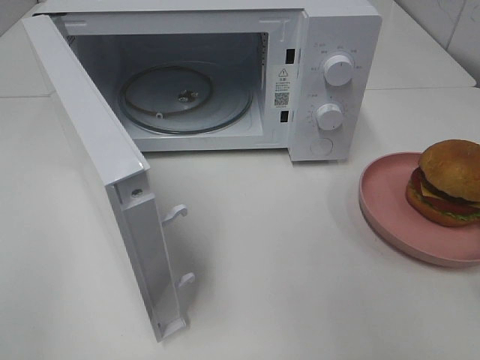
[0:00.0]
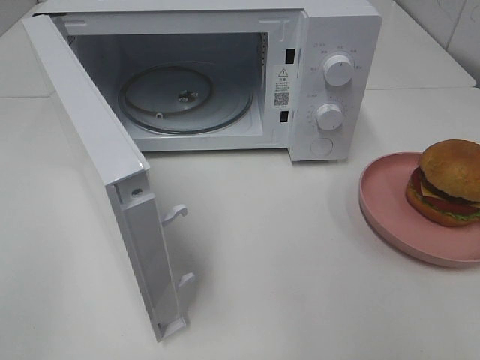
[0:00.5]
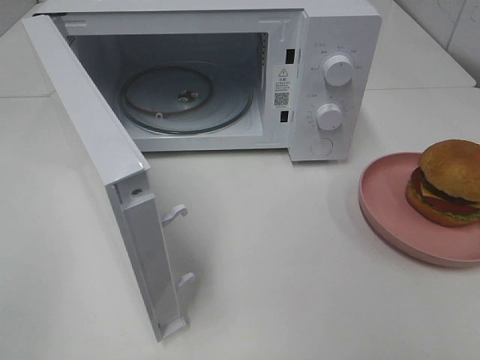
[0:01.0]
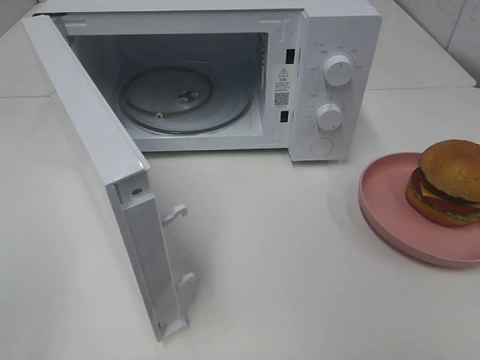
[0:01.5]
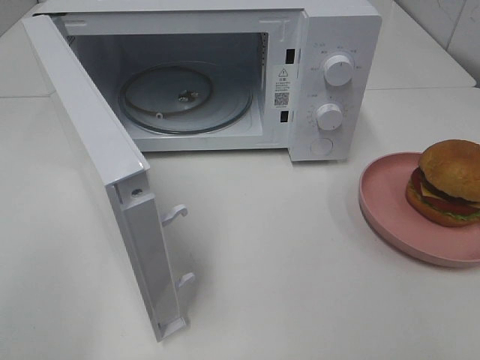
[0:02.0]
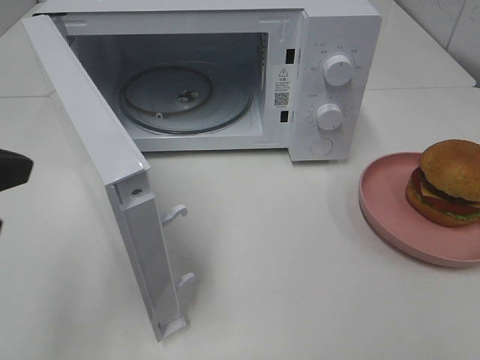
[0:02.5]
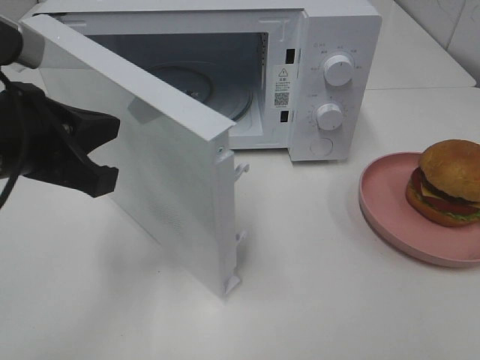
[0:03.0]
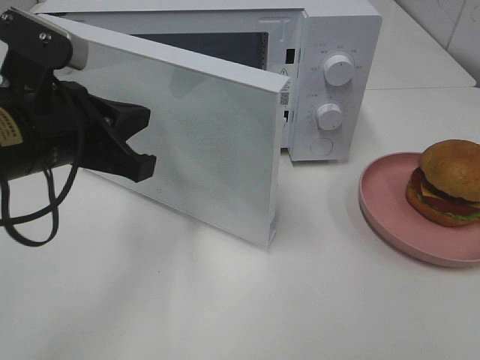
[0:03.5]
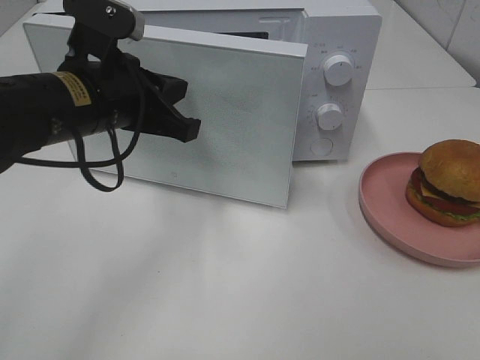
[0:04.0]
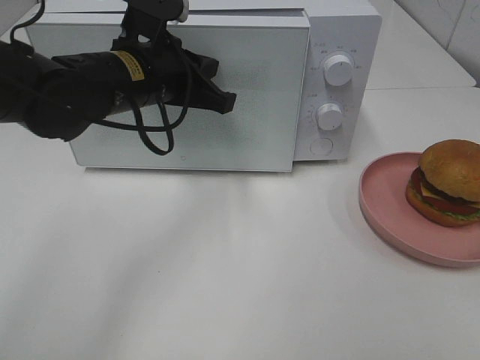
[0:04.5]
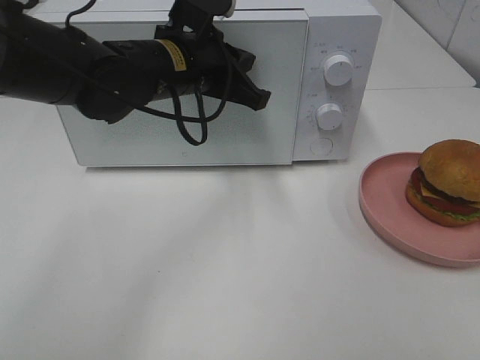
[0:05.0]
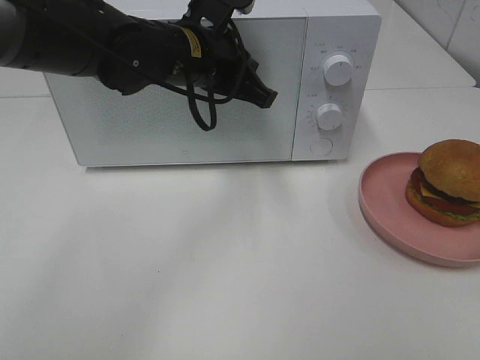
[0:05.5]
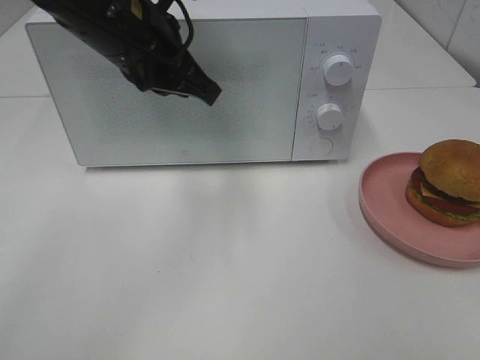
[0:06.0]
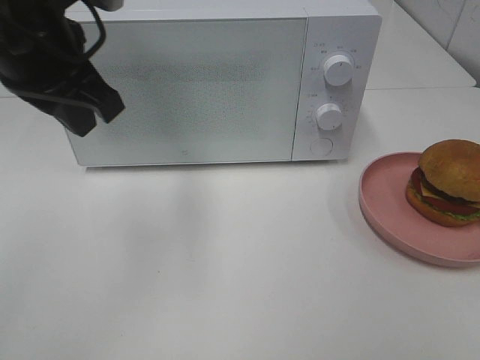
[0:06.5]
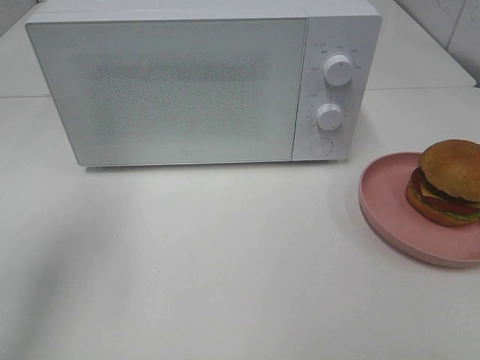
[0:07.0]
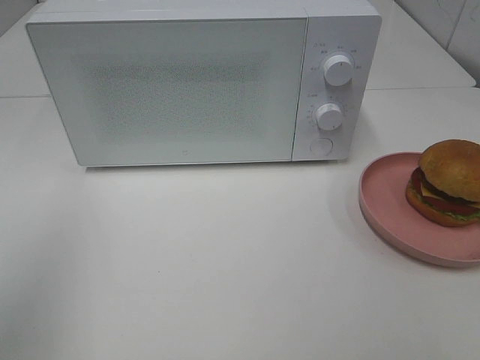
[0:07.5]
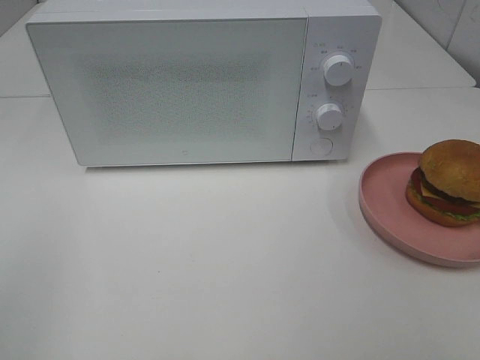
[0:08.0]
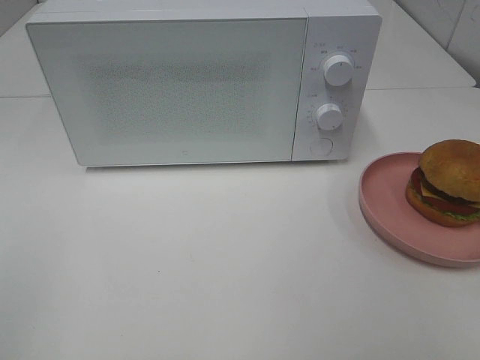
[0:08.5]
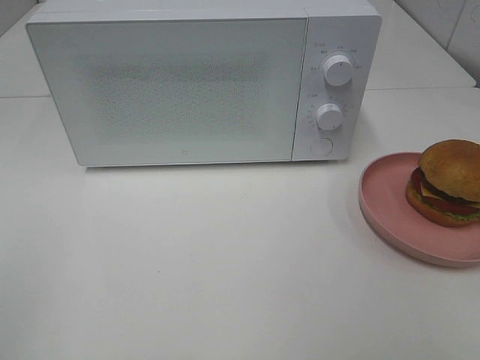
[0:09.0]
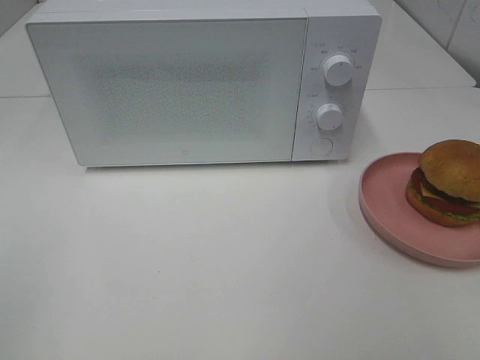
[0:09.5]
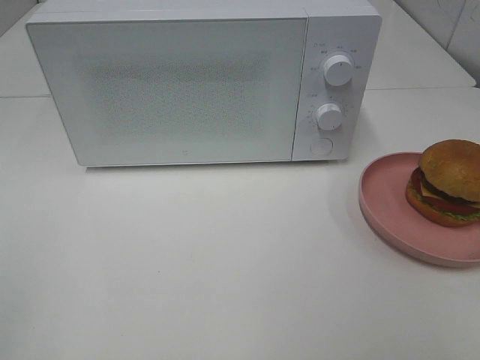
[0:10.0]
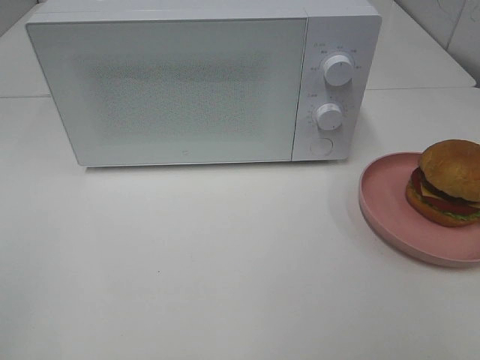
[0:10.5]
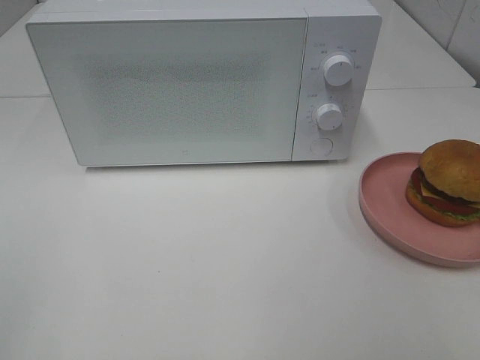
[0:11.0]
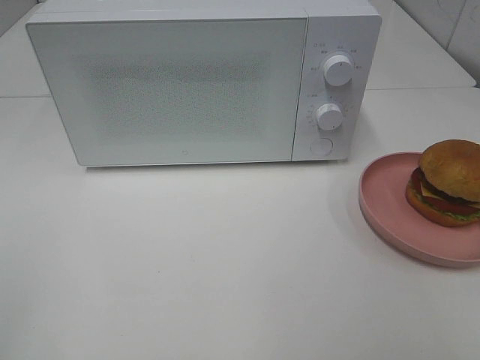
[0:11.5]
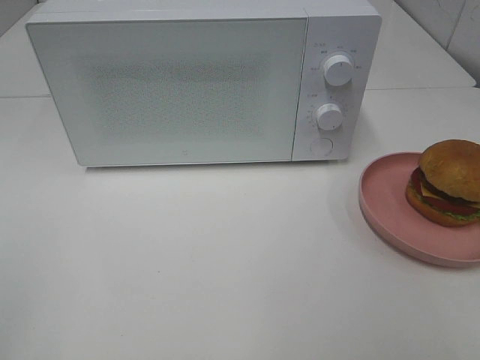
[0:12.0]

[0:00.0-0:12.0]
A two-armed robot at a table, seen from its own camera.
Task of the whole recording: Heat the burger.
Step, 0:00.0 to 0:05.5: Left hand: close the microwave door.
0:02.0 to 0:04.0: The left gripper shifts some 30 cm forward, to the right and downward.
0:04.0 to 0:06.0: The left gripper is displaced upward by some 5 cm.
0:06.0 to 0:08.0: The left gripper goes some 35 cm backward and to the left.
0:10.0 to 0:12.0: The two grippers keep their place.

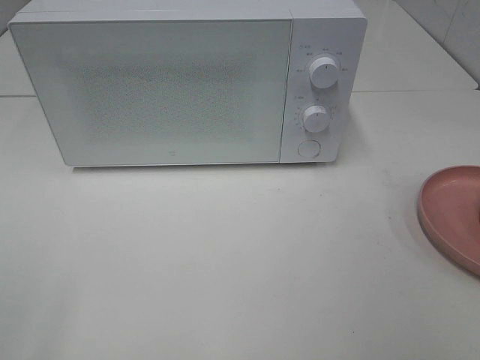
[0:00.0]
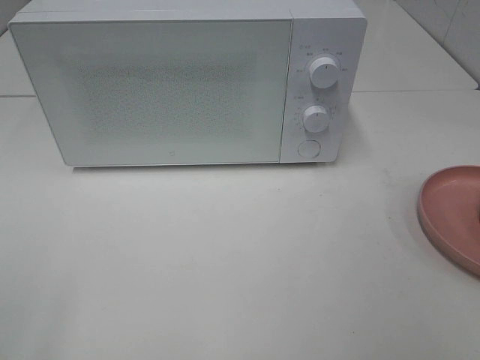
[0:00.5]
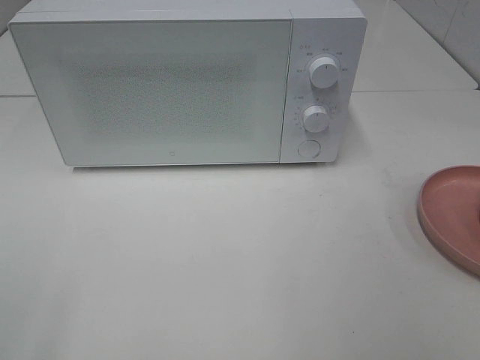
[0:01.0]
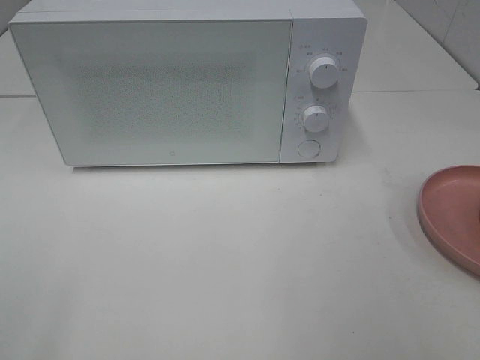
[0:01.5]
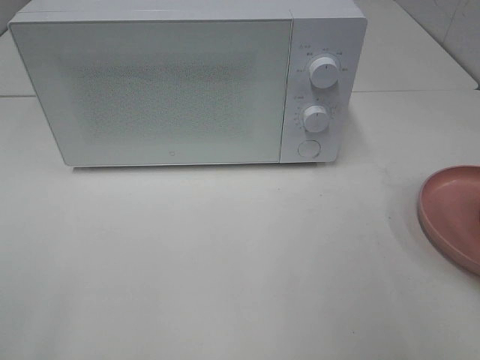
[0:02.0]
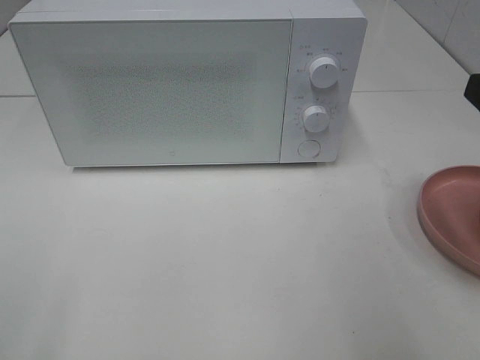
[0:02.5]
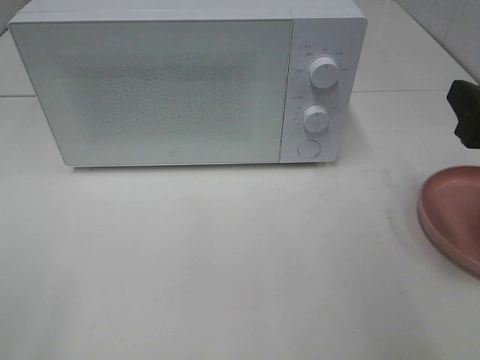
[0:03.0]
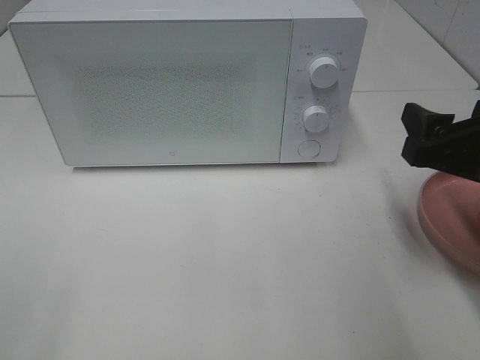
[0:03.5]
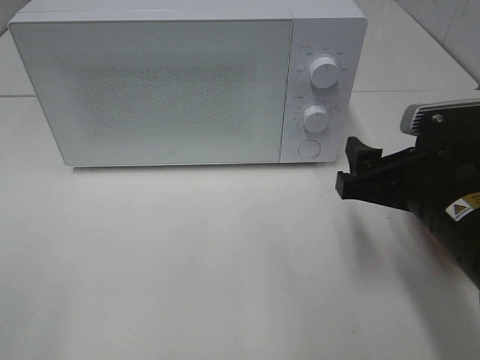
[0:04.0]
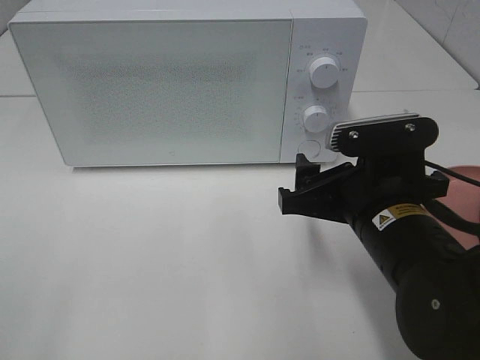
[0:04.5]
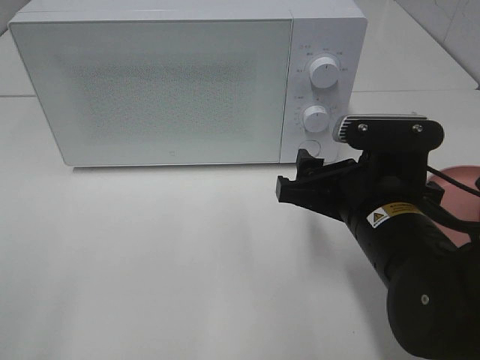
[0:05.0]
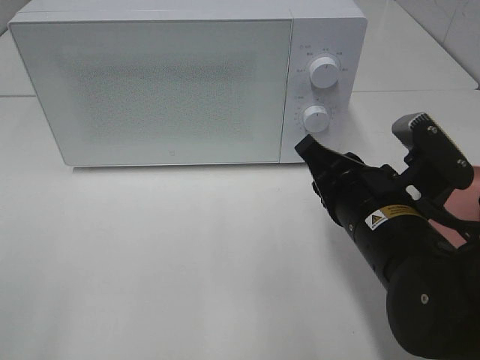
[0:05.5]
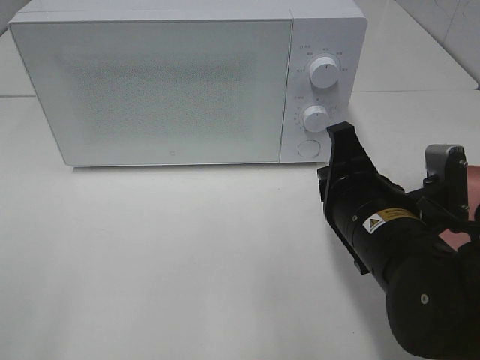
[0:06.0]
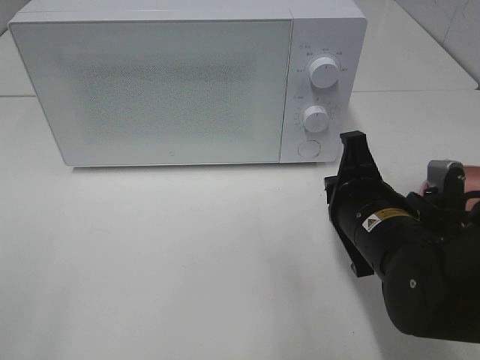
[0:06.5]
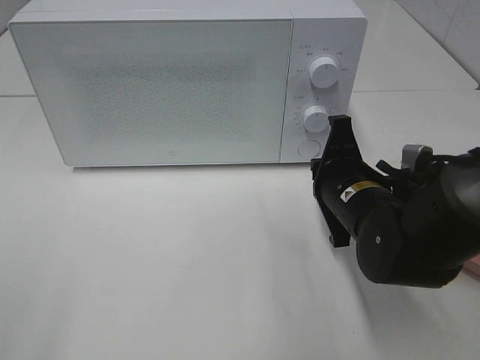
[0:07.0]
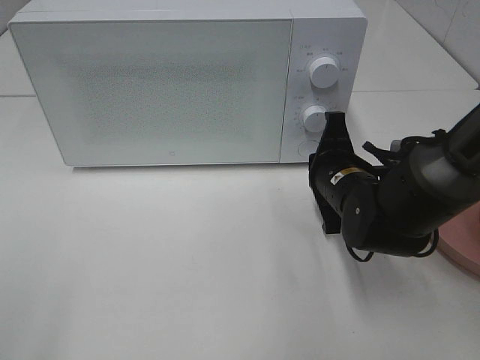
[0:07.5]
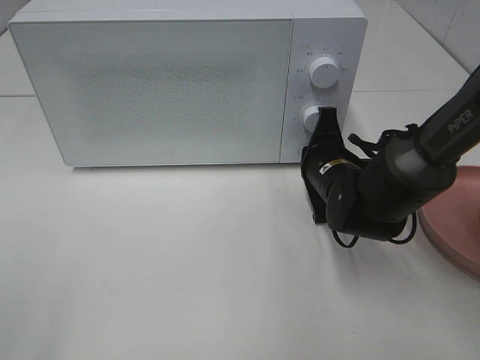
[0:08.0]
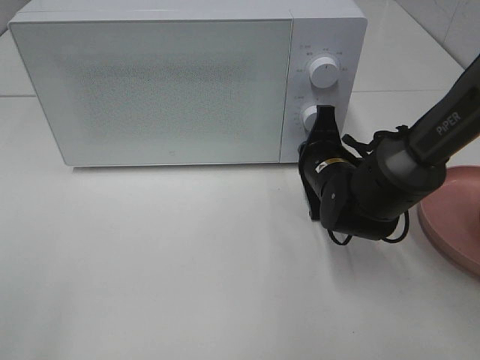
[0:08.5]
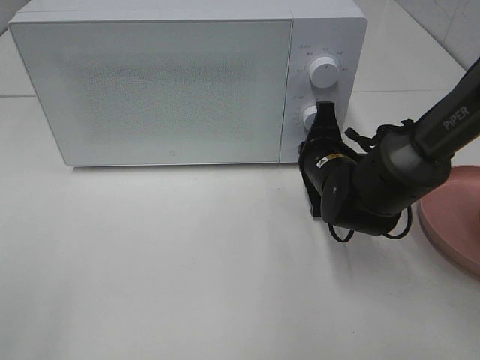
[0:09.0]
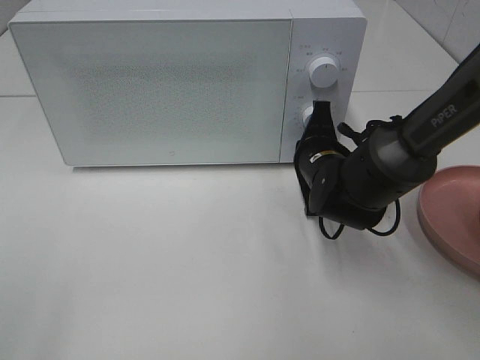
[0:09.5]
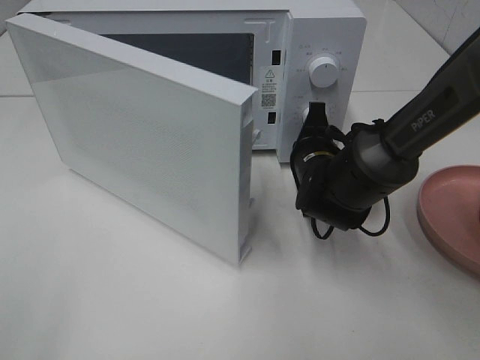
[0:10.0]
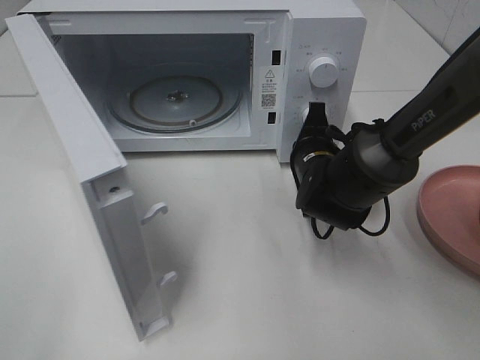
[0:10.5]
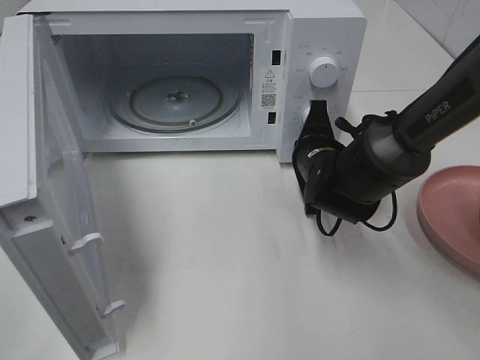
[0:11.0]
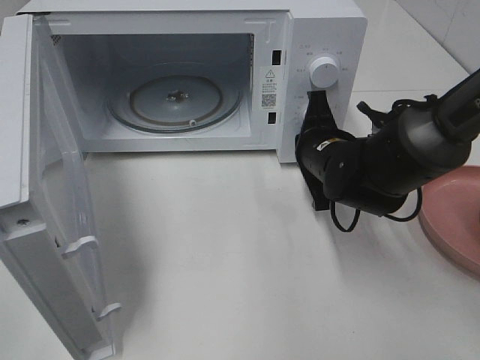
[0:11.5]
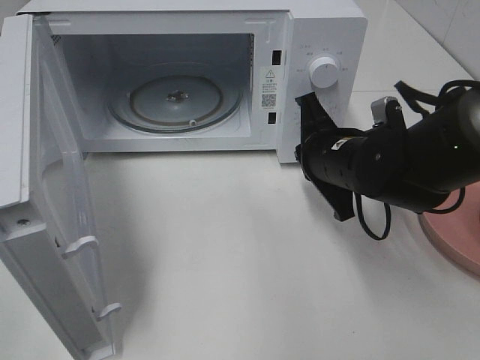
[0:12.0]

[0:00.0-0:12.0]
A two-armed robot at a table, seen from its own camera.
Task of the whole recording: Heat the burger.
Step, 0:00.0 to 0:11.5: Right hand: press the switch.
0:02.0 to 0:04.0: The right gripper goes approximately 15 cm downward, to the left and forward.
0:04.0 to 0:06.0: The right gripper is displaced to the left by about 5 cm, and closes its fingers.
0:06.0 to 0:08.0: The right gripper goes roughly 15 cm forward and downward.
0:10.0 to 0:12.0: The right gripper goes some 5 cm upward.

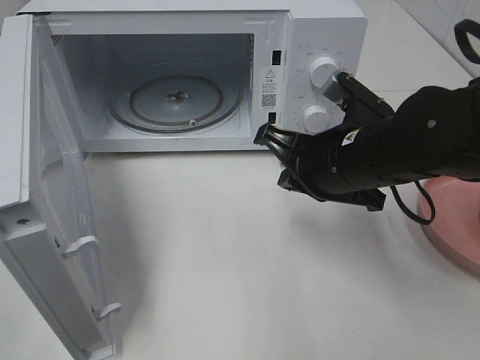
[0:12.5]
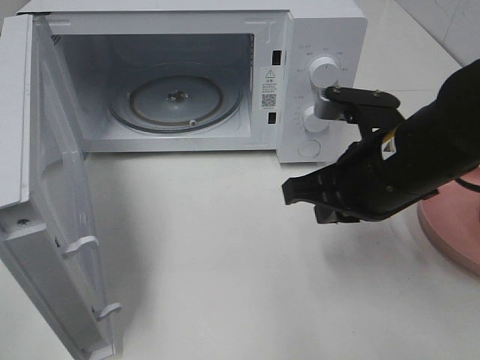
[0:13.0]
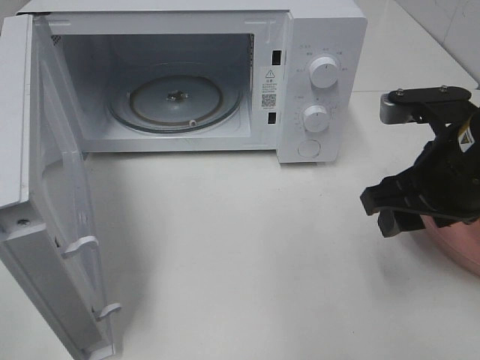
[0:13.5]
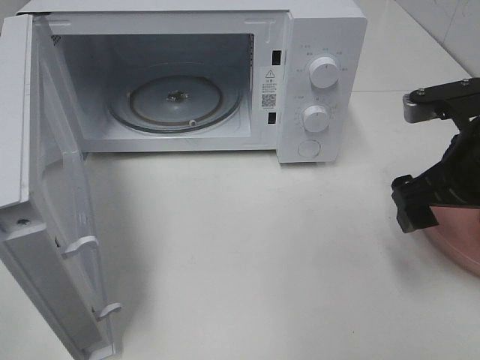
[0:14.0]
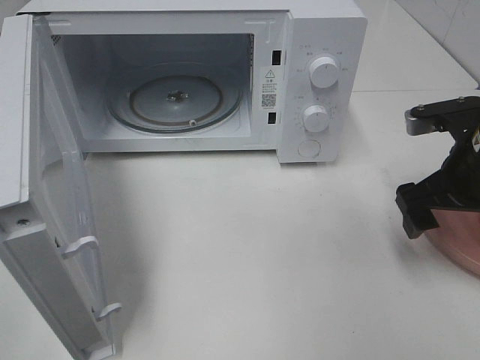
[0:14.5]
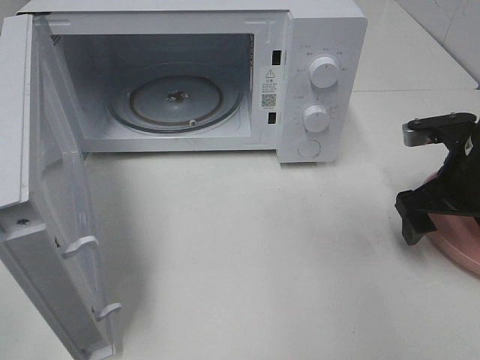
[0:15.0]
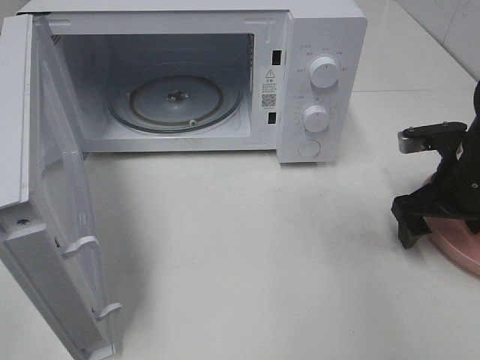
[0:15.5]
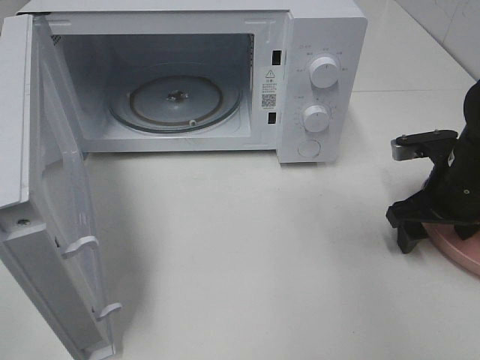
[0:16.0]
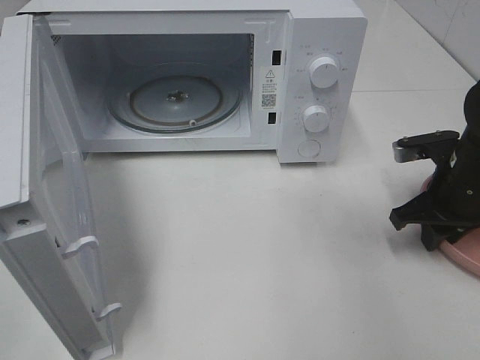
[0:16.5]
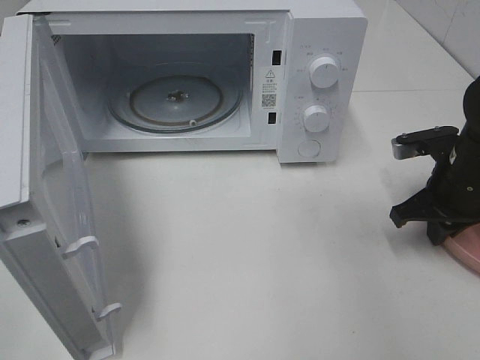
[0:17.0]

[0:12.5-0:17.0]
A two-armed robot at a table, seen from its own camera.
Task of the whole recording: Heat the burger.
Step, 0:12.5 to 0:16.5: Right hand: grab the plate with the hamburger.
0:12.5 to 0:14.5: The right gripper heads to the right, covering some 10 cm, and opens.
0:14.5 to 0:17.0: The right gripper heads downward, covering approximately 5 cm, and closes its fingers.
